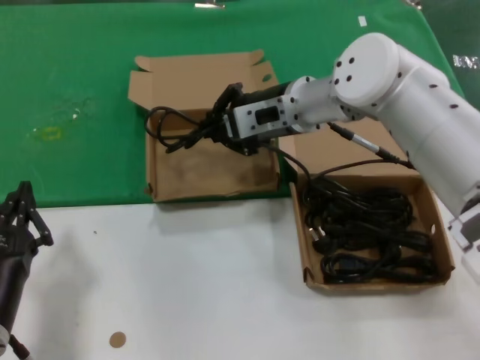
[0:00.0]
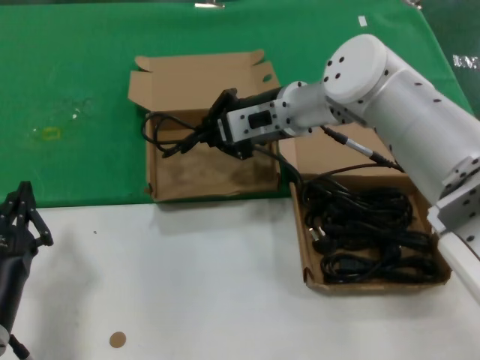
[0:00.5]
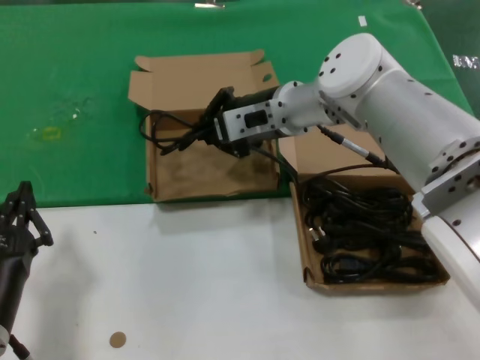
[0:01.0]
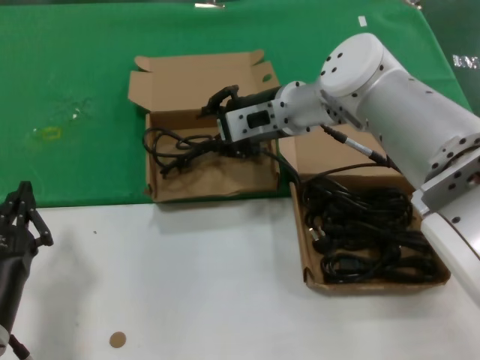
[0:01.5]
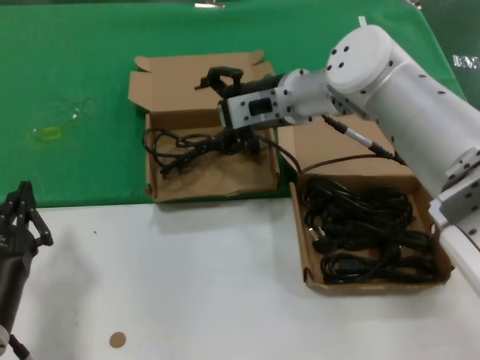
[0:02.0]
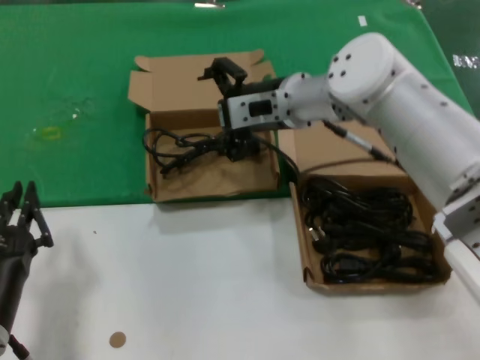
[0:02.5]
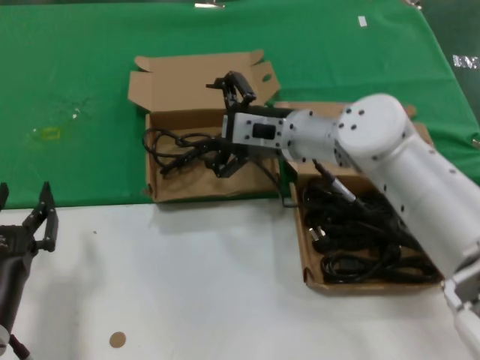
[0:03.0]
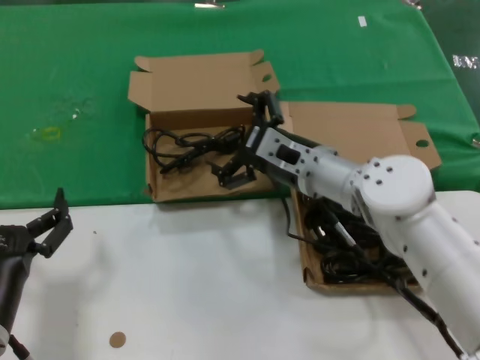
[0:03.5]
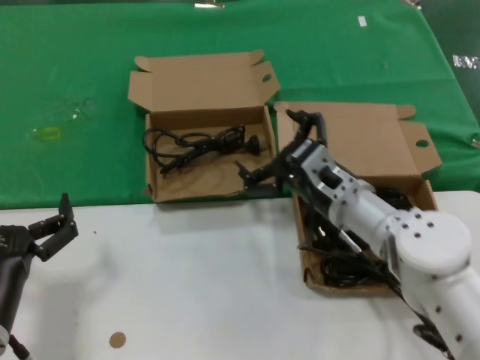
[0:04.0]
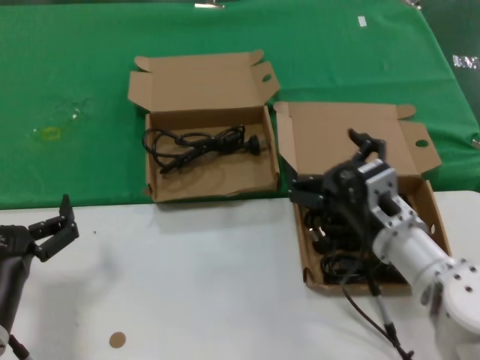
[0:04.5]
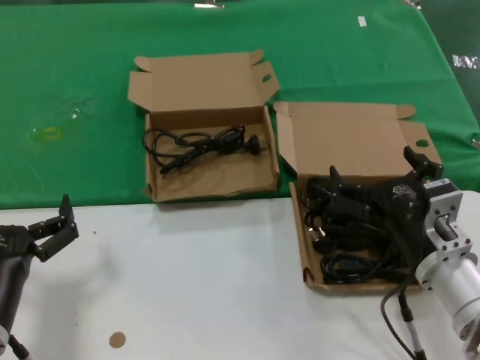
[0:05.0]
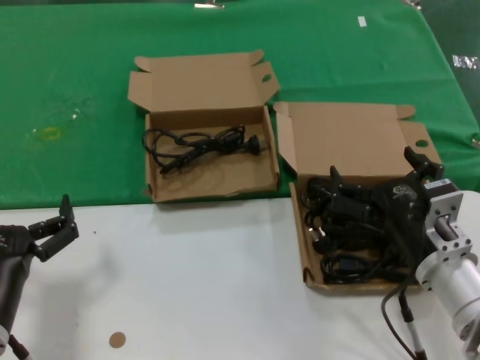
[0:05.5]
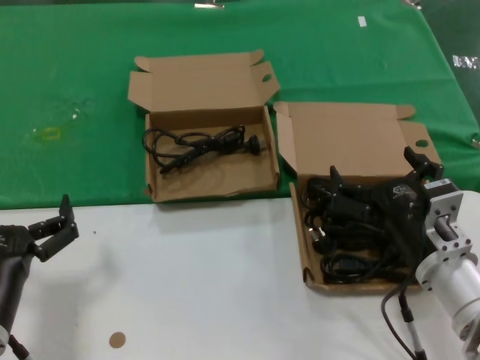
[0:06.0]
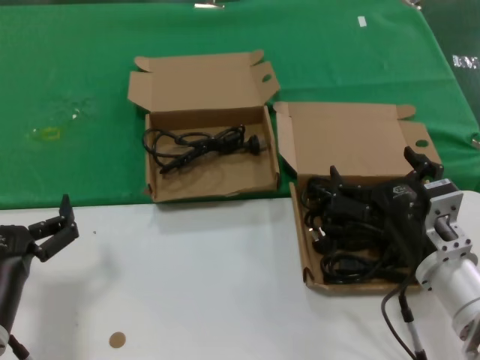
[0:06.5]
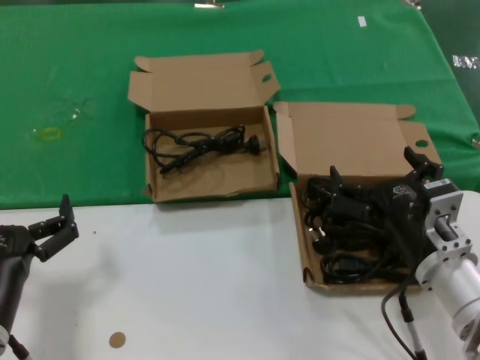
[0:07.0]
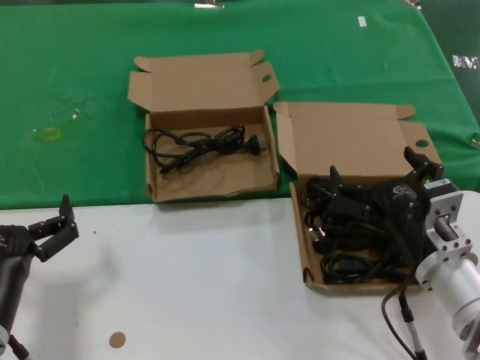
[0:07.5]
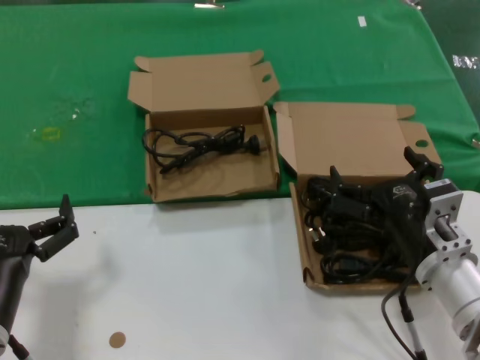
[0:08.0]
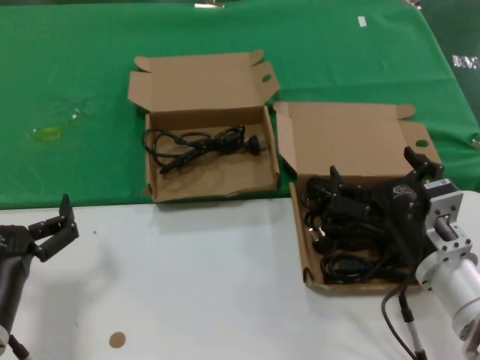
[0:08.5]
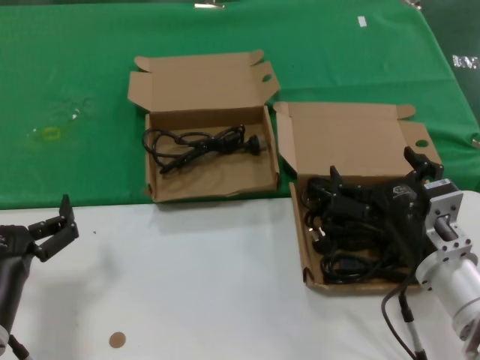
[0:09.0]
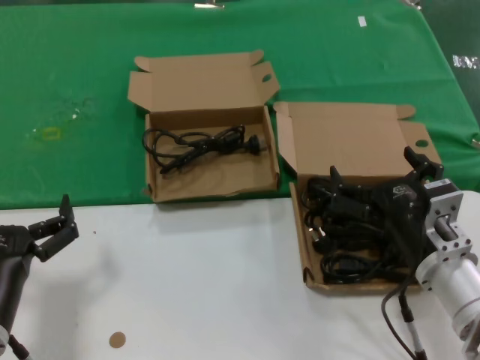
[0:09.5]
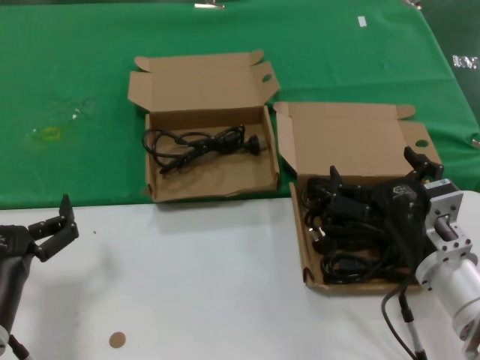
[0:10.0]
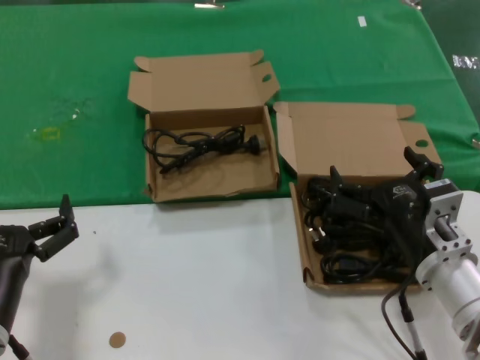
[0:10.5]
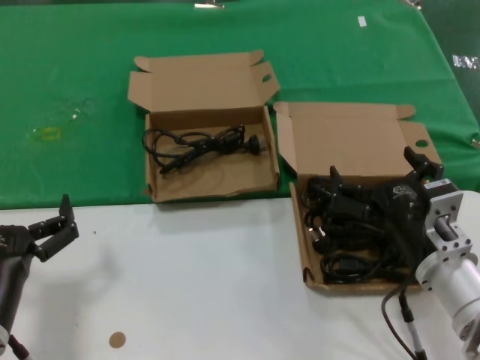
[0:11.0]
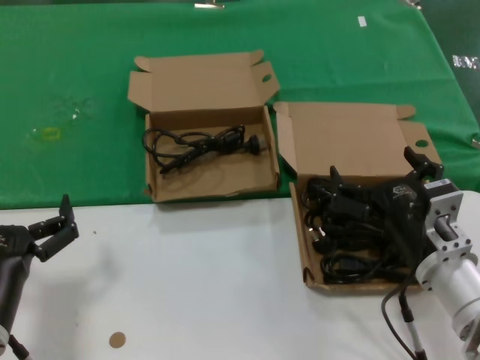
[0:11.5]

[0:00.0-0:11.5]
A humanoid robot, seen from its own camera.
Task of the whole recording: take the parts from the box containing them and put them into an empty box.
0:00.0 to 0:02.0: There are only small adjustments of the hands.
0:02.0 to 0:04.0: The right hand travels downward and backward by about 20 cm.
0:04.0 to 0:06.0: The right hand travels backward and to the right by about 15 cm.
0:06.0 to 0:11.5: The two hands keep their place.
